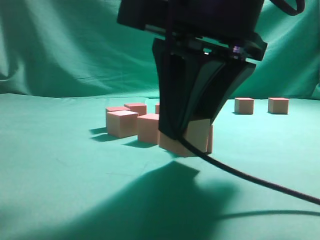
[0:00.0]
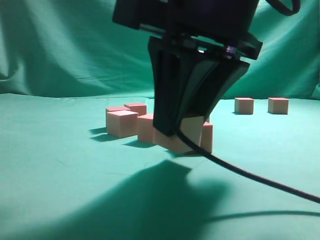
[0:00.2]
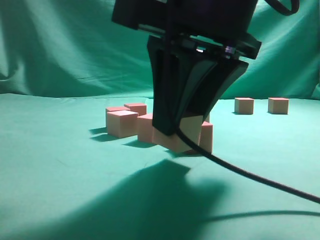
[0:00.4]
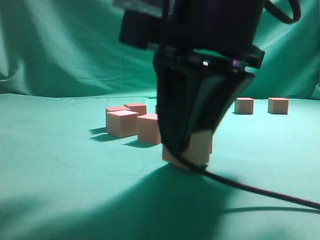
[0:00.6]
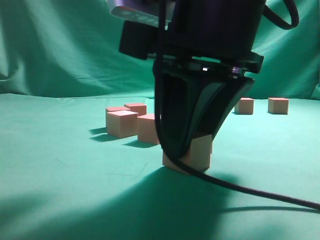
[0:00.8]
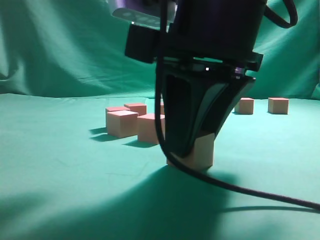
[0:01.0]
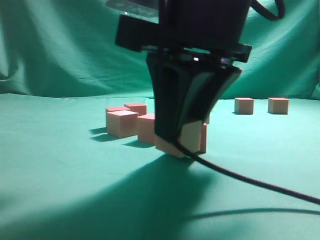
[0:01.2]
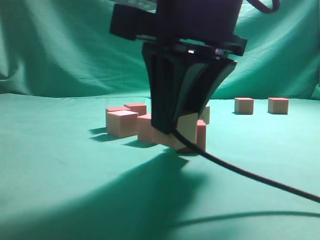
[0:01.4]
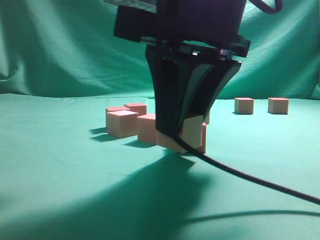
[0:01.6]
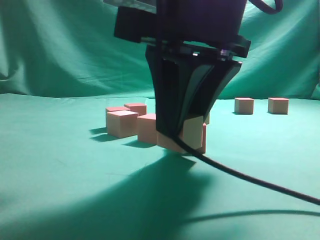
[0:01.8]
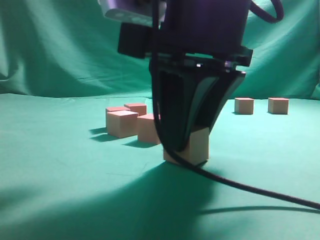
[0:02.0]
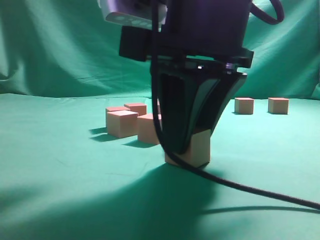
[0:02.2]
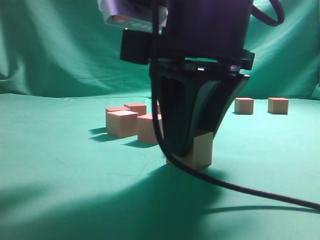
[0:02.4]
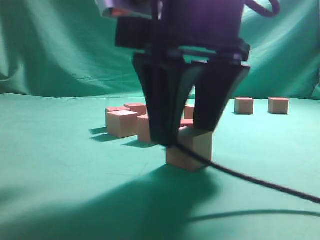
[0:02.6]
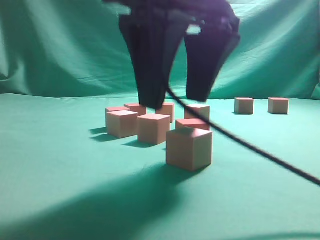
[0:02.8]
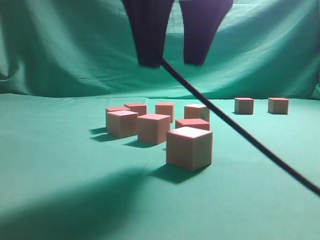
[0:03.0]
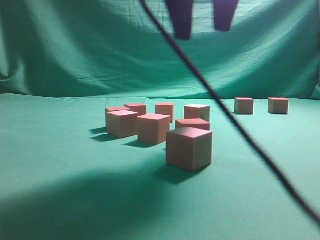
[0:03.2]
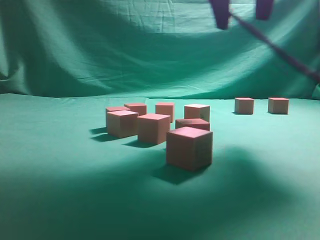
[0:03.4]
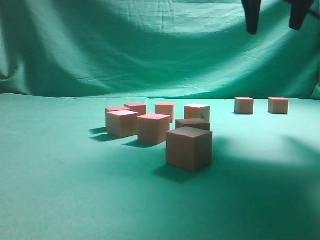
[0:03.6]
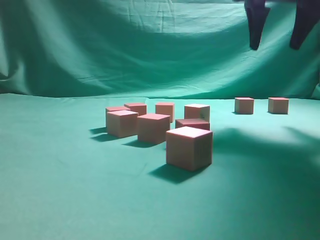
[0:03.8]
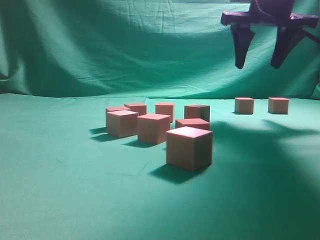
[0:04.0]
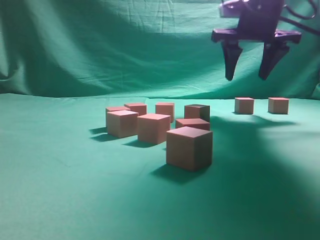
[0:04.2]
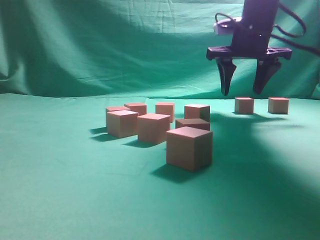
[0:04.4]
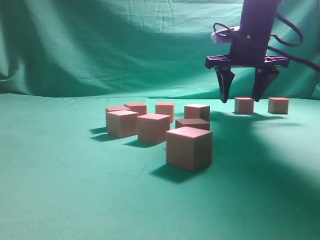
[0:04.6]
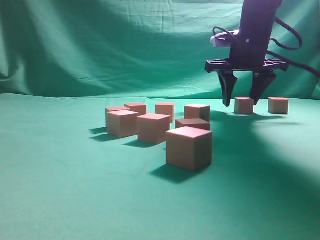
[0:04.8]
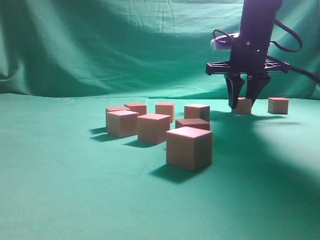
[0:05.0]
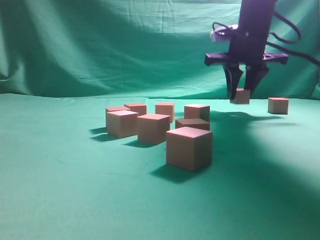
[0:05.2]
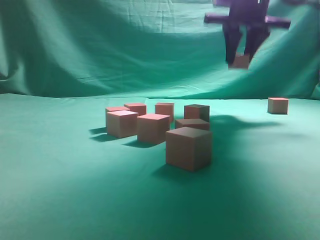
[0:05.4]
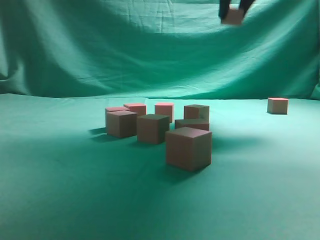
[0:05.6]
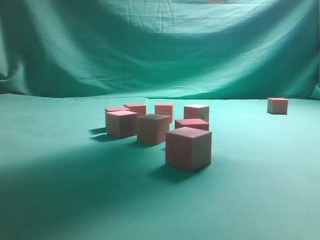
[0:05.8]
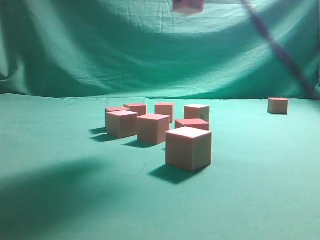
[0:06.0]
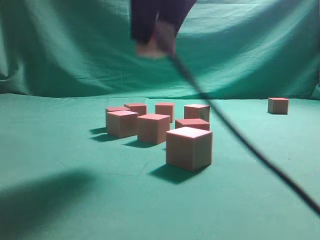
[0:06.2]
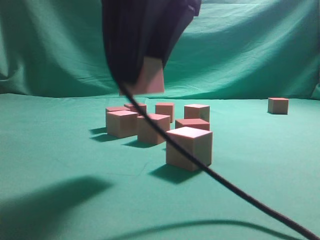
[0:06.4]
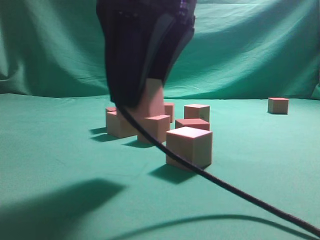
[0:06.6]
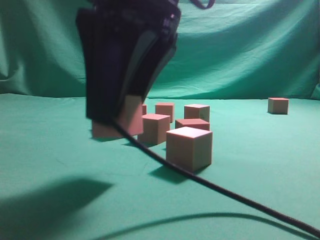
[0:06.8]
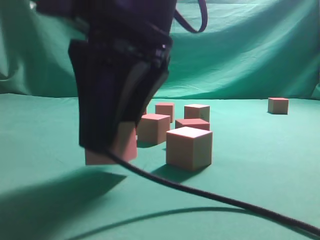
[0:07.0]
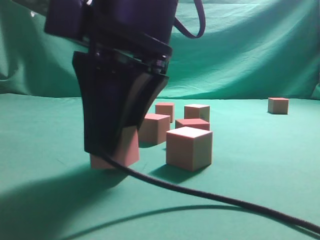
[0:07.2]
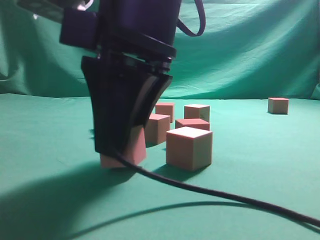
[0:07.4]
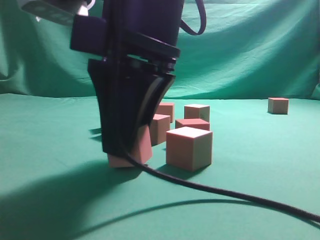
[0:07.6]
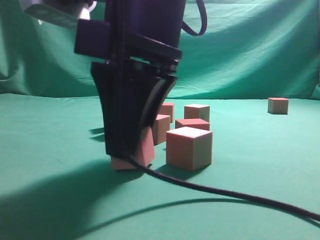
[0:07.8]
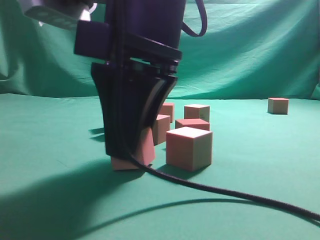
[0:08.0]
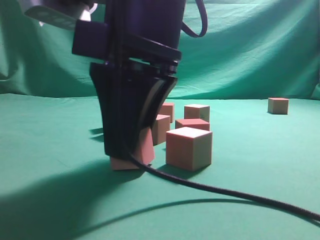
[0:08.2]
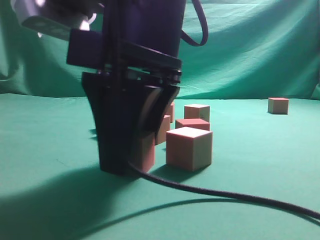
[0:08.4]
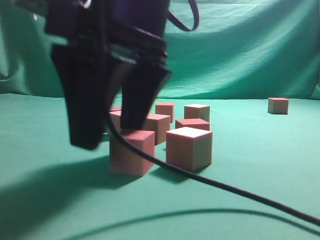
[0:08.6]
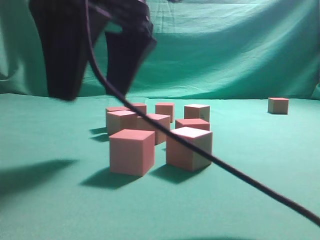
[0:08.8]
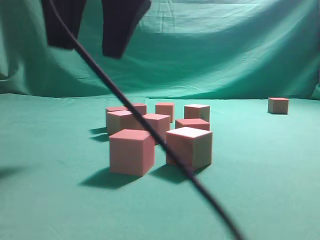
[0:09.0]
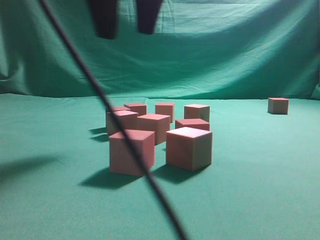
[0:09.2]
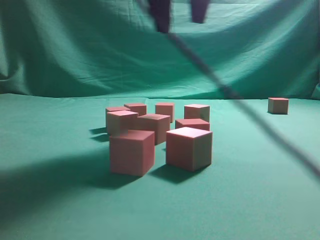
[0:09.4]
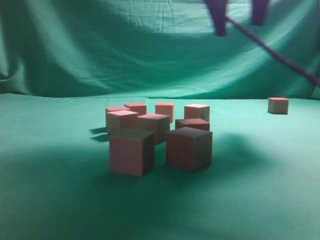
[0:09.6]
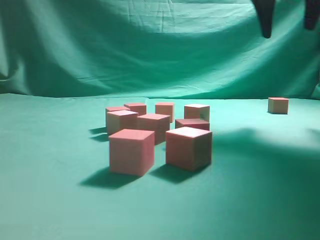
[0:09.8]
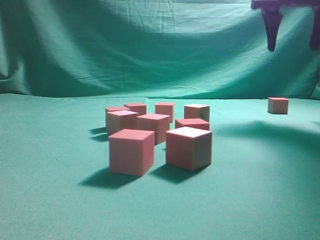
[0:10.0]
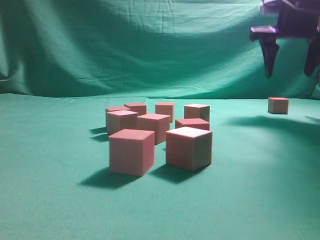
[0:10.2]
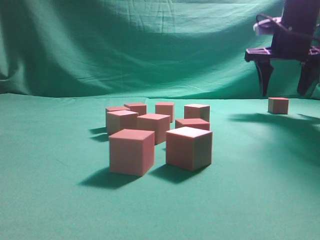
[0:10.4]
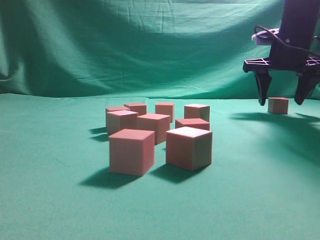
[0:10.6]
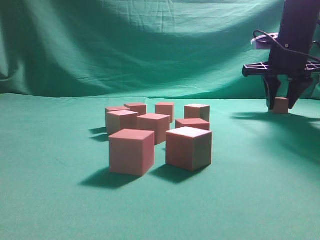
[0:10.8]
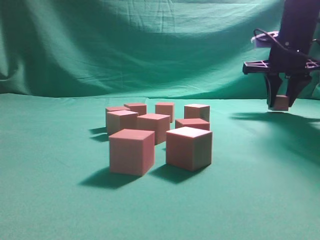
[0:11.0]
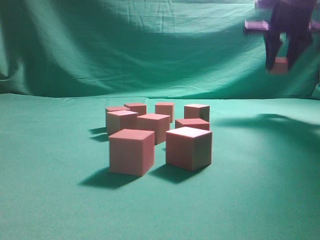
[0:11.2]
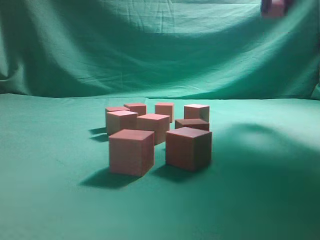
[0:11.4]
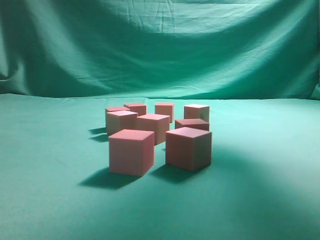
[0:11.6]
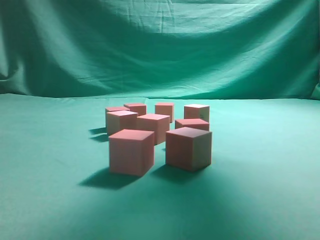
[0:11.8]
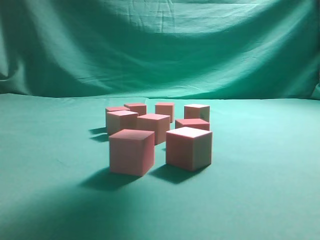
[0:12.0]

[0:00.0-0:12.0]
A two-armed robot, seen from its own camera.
Task of the whole recording: pick up the multiple cubes in two columns one by one and place them in another position on the table.
Step, 0:00.0 to 0:03.0: Place the block at the correct position to assemble the letter S.
Step, 0:03.2 to 0:05.4: Pick up the block on the table.
Step, 0:05.6 to 0:08.8: Place the block at the correct position to assemble the letter S.
Step, 0:09.2 to 0:11.2: Pick up the block on the table.
0:00.0 to 0:01.6: There are only small adjustments of the grippers.
0:01.6 to 0:03.0: The right gripper goes some 5 cm upward, and opens.
0:03.0 to 0:04.4: The right gripper is displaced forward and to the right by some 30 cm.
0:04.4 to 0:06.0: The right gripper moves backward, upward and to the left, roughly 25 cm, and closes its fingers.
0:06.0 to 0:07.6: The right gripper travels downward, backward and to the left by about 20 cm.
0:07.6 to 0:09.0: The right gripper heads upward, covering roughly 10 cm, and opens up.
0:09.0 to 0:10.4: The right gripper heads to the right and forward, covering some 35 cm.
0:10.4 to 0:12.0: The right gripper travels backward, upward and to the left by about 25 cm, and closes its fingers.

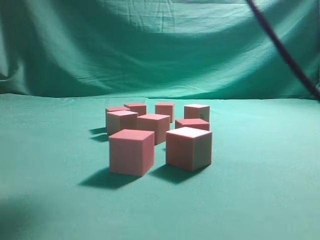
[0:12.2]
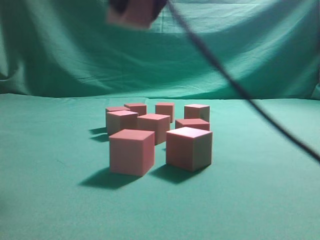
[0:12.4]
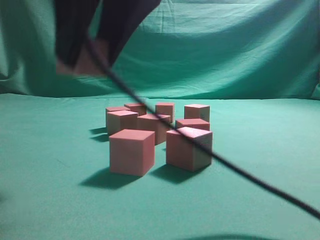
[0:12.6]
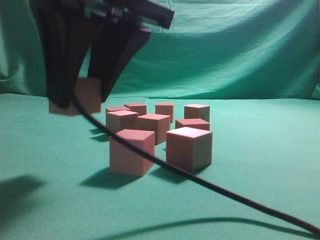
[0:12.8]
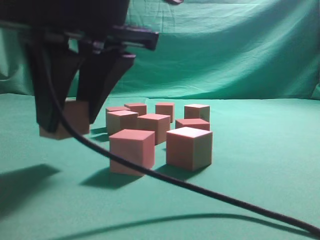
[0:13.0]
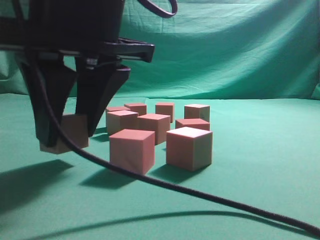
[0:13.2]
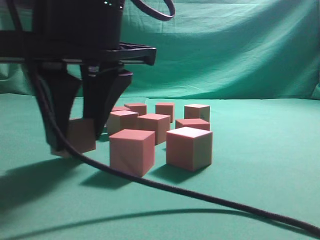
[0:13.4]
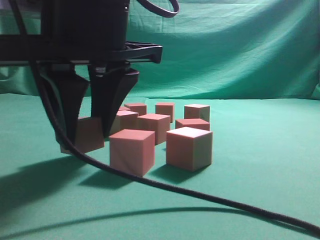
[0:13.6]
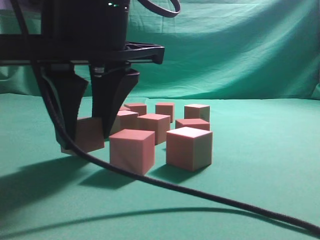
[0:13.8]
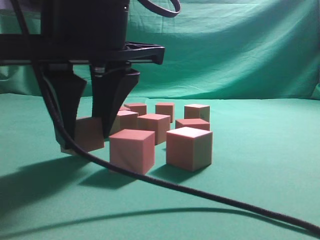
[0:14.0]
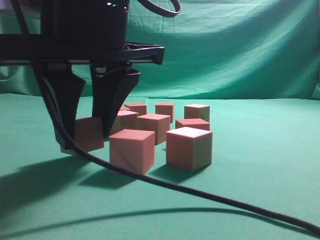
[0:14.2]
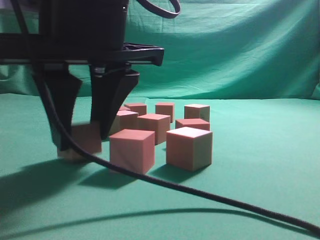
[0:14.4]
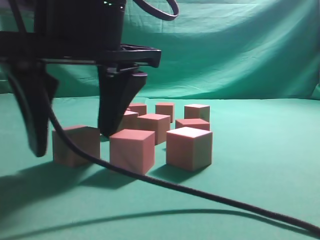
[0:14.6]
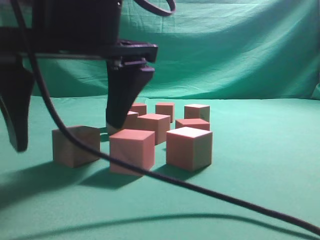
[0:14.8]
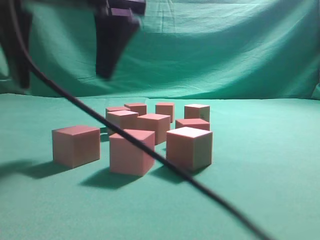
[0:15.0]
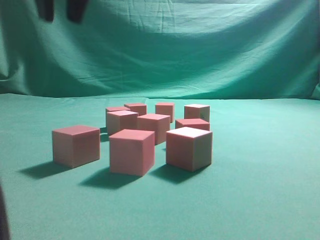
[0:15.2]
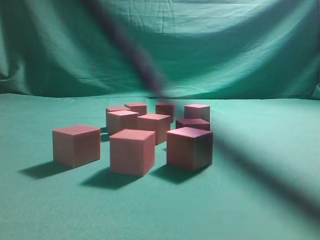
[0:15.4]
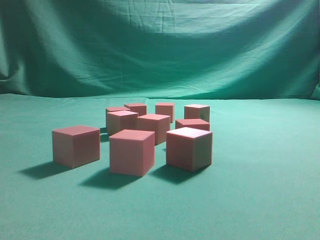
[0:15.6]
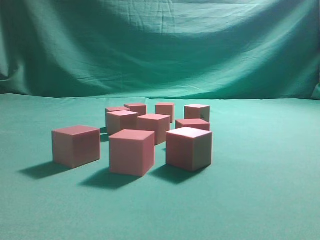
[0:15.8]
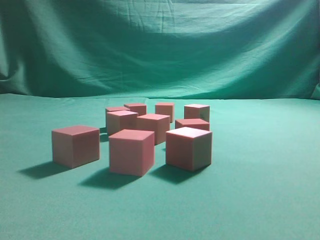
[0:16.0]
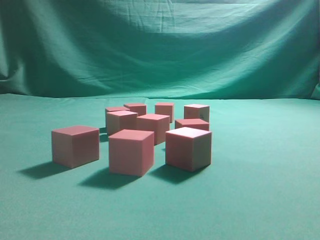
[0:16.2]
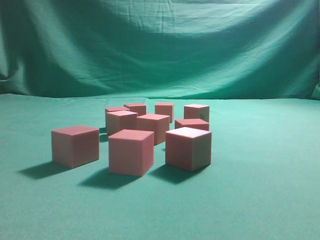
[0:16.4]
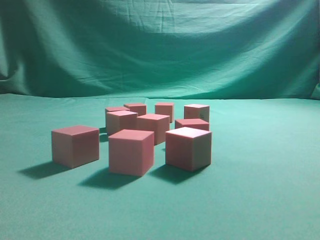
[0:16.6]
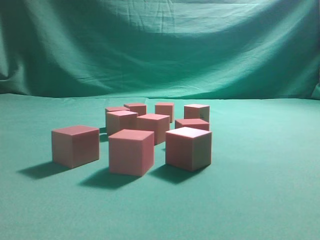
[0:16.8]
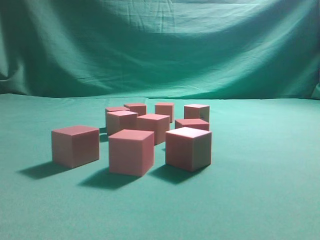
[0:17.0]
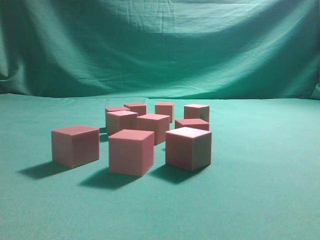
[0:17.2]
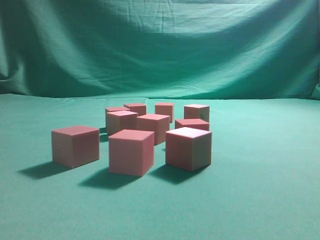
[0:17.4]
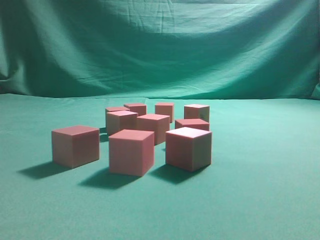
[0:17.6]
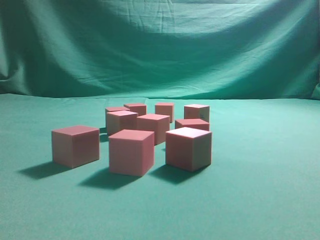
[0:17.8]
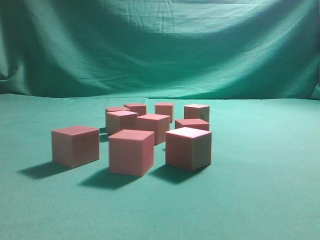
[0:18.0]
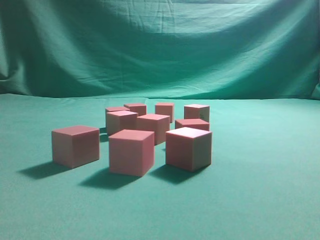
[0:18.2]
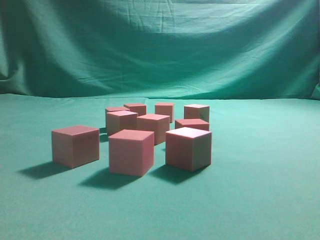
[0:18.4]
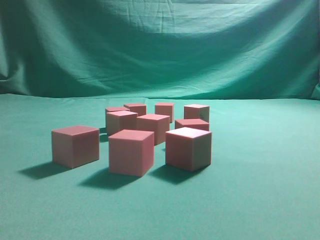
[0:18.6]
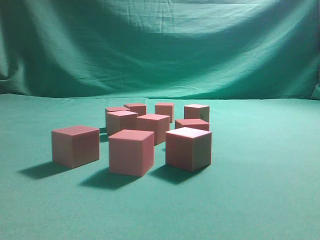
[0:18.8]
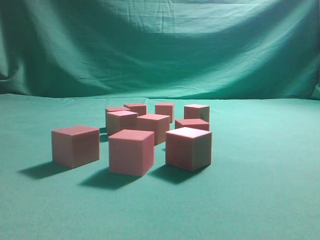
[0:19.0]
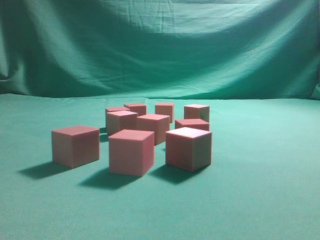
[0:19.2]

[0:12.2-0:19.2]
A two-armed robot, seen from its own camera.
Task of the whole recording: pick up the multiple cubes in two columns one by one and place them in another position on the table.
Step, 0:12.2 to 0:14.8: Place the block at the correct position to assemble the letter S.
0:12.2 to 0:13.6: The right gripper is displaced downward and to the left by about 20 cm.
0:13.6 to 0:15.0: The right gripper heads upward, covering approximately 5 cm, and opens.
0:15.0 to 0:16.4: The right gripper shifts roughly 40 cm to the right, upward and backward, and closes.
